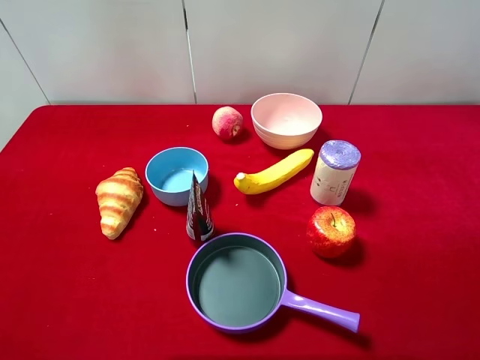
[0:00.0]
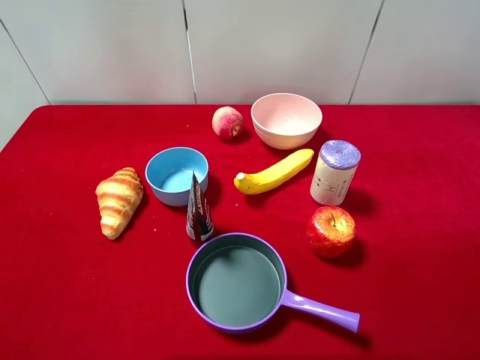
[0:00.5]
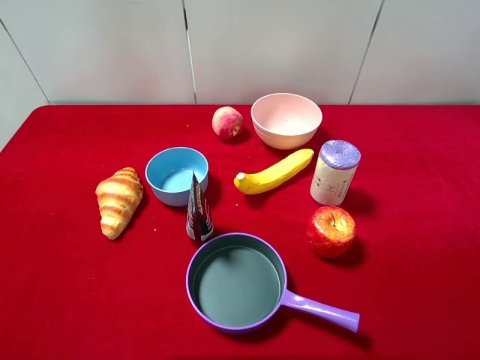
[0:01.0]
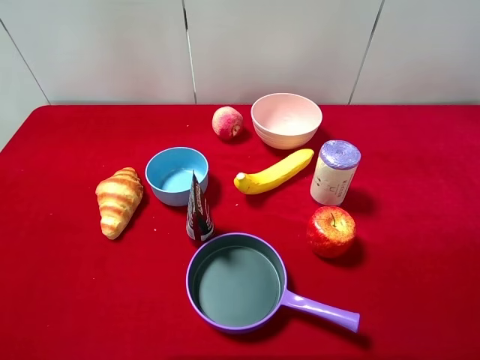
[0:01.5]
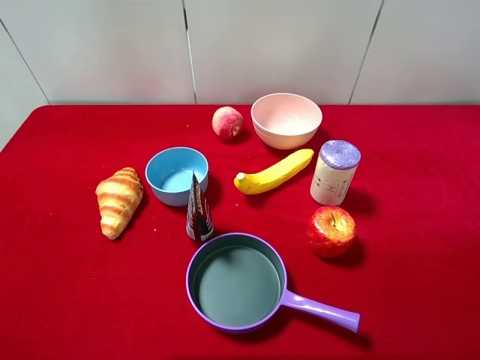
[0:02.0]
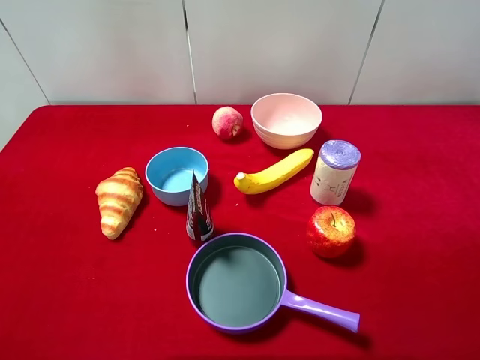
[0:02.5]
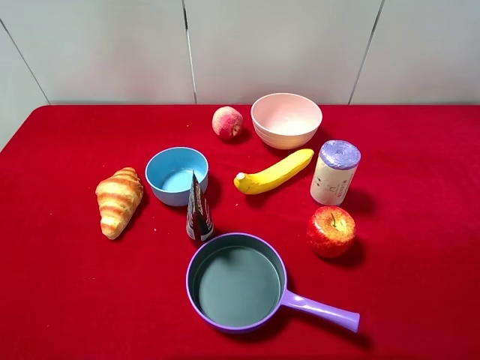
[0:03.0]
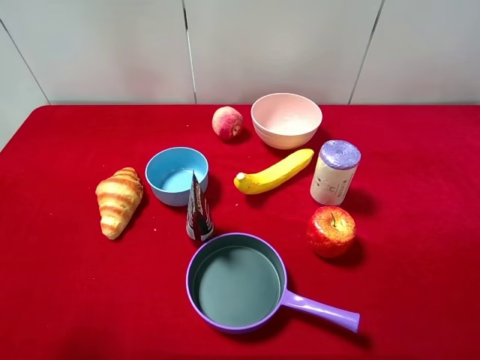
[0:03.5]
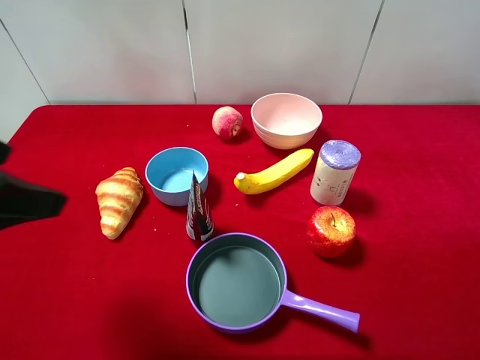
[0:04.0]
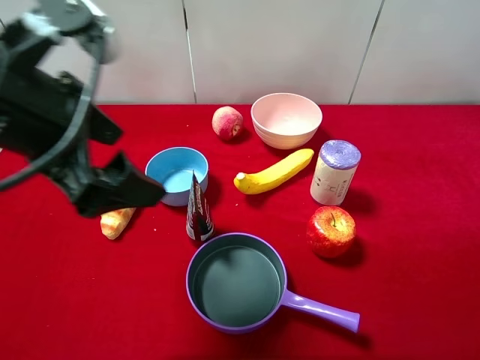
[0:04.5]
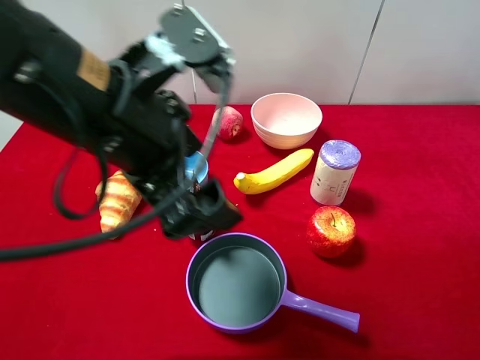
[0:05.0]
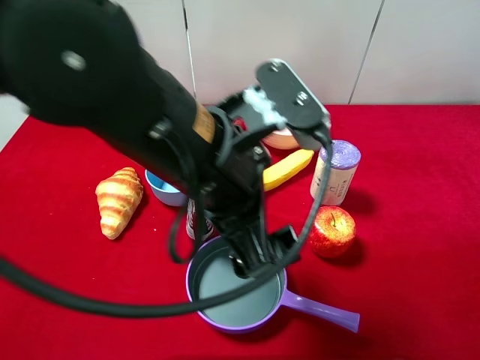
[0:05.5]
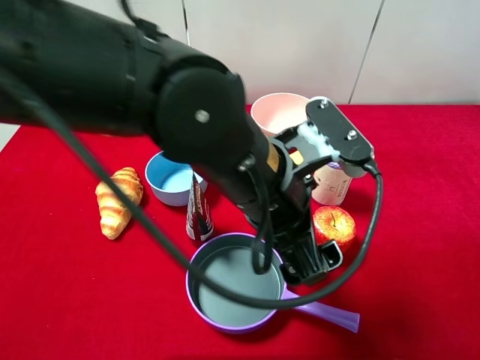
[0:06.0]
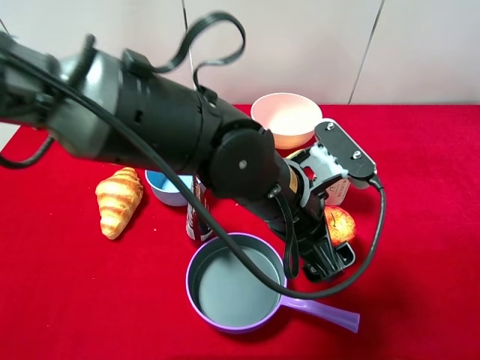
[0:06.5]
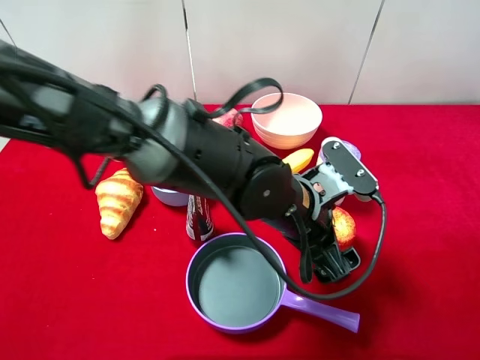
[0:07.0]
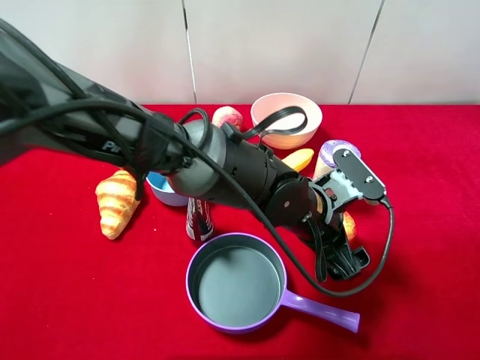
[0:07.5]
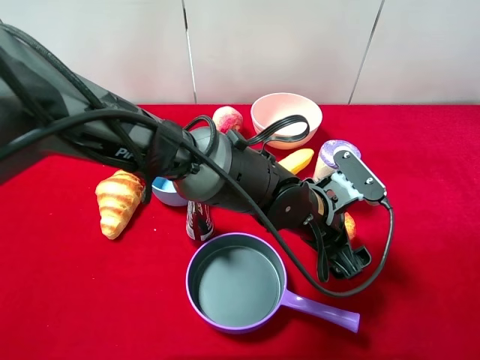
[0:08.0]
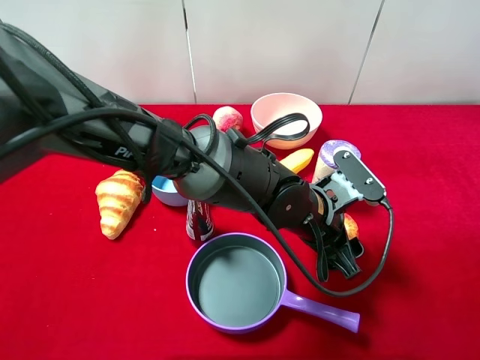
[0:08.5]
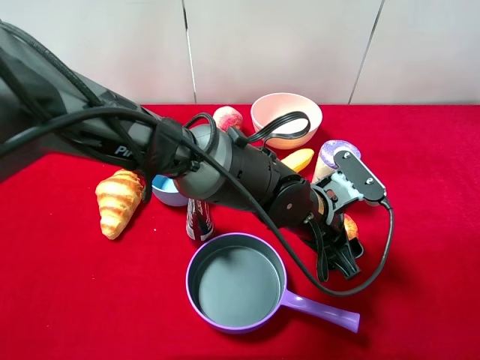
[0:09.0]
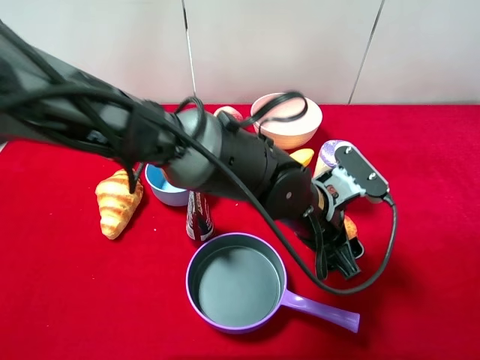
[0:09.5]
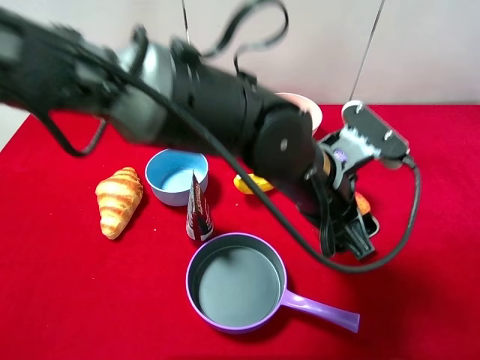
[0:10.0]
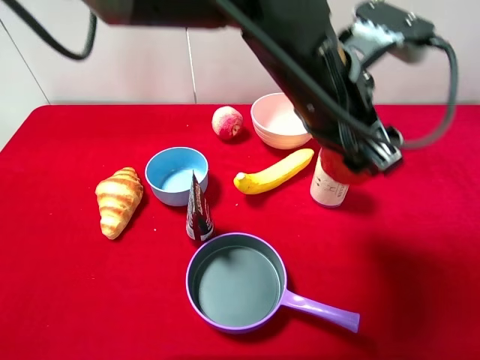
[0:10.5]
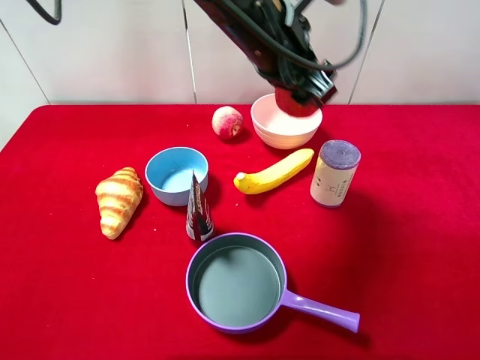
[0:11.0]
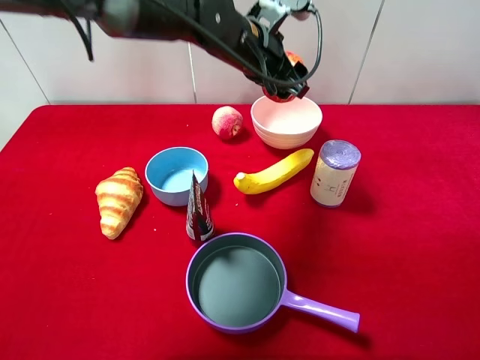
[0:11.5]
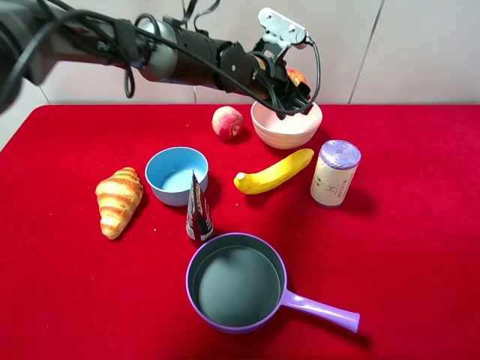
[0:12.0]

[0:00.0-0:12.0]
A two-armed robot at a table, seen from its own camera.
Task of the whole recording: pick up an item with a gripper and place it in a random container on the desktop.
0:00.0 to 0:02.0: Both grippers stay about where they are.
0:02.0 to 0:04.0: The left gripper shifts some 15 cm forward and to the right.
0:04.0 to 0:06.0: The left gripper is displaced to the right by about 25 cm.
0:06.0 to 0:08.0: The left gripper travels downward and to the right by roughly 15 cm.
0:08.0 to 0:10.0: The left gripper heads upward, covering approximately 10 cm, and closes up.
0:10.0 to 0:12.0: The left gripper heads forward, covering about 20 cm.

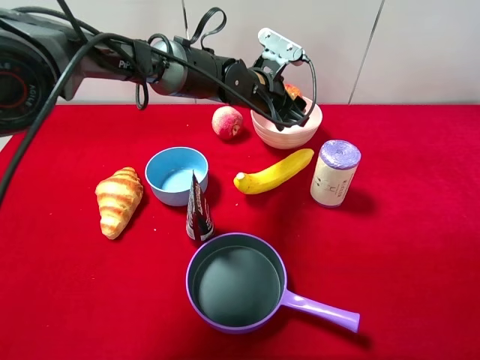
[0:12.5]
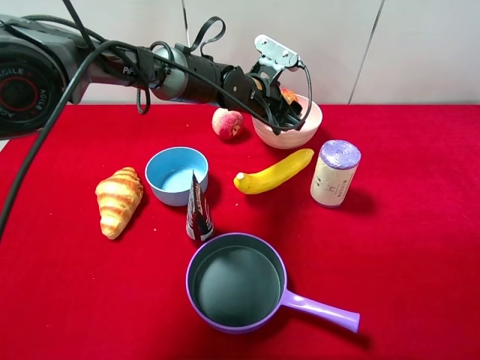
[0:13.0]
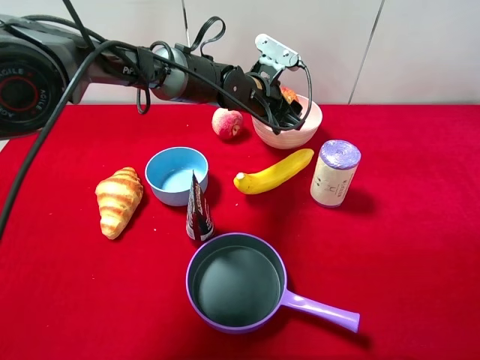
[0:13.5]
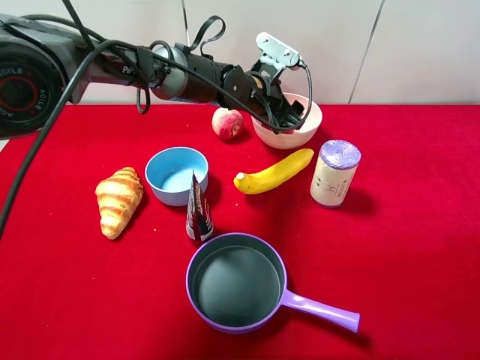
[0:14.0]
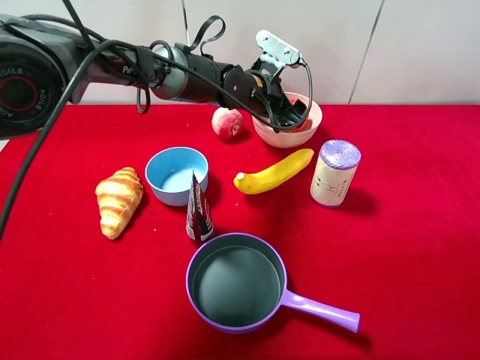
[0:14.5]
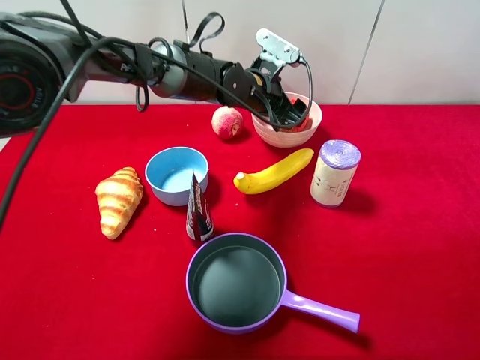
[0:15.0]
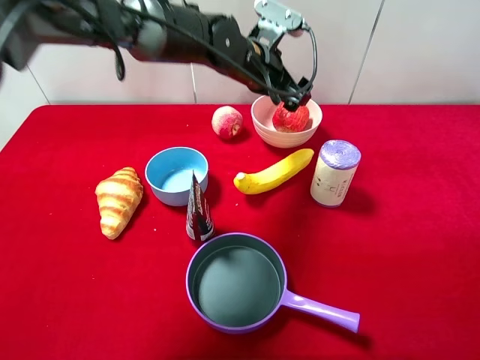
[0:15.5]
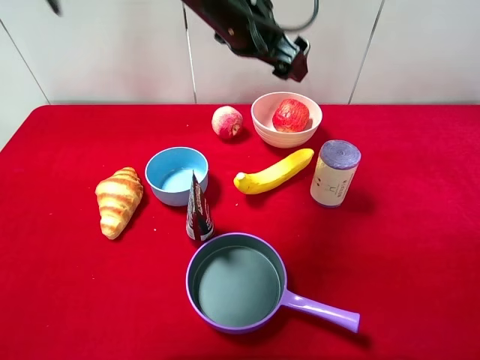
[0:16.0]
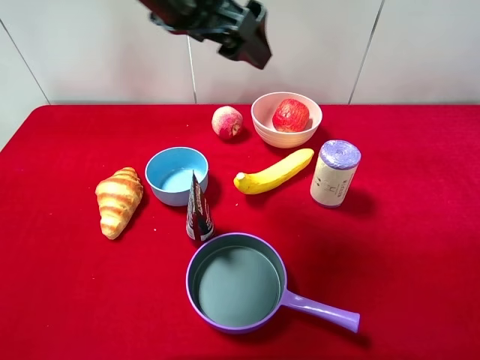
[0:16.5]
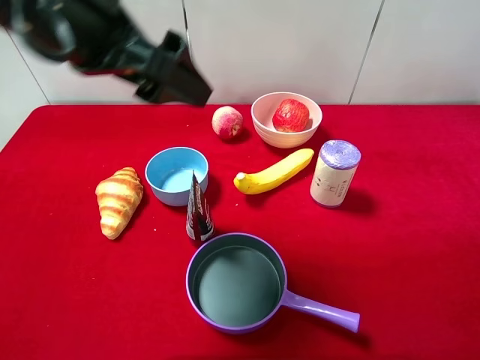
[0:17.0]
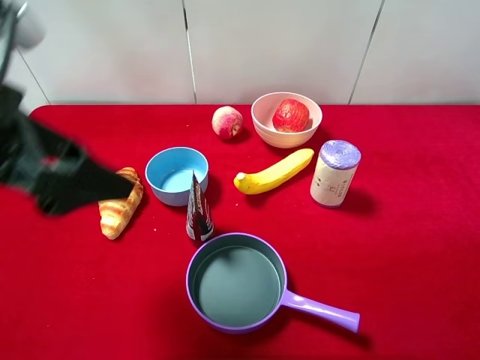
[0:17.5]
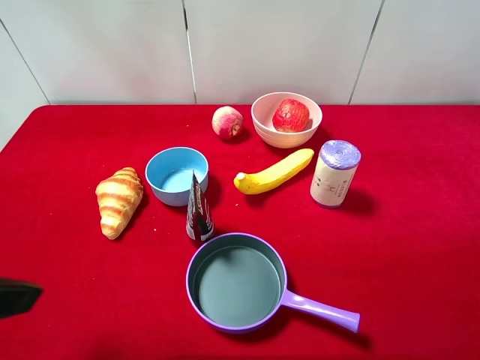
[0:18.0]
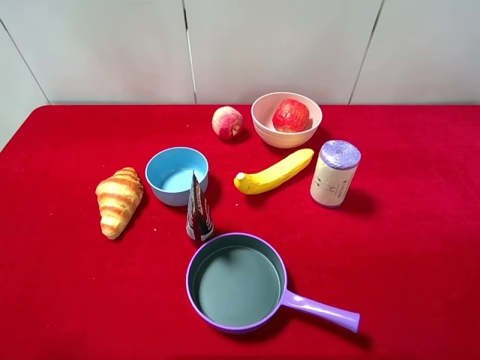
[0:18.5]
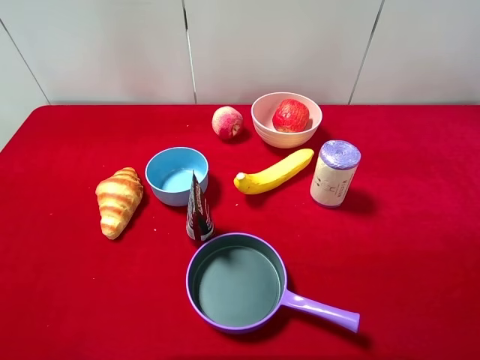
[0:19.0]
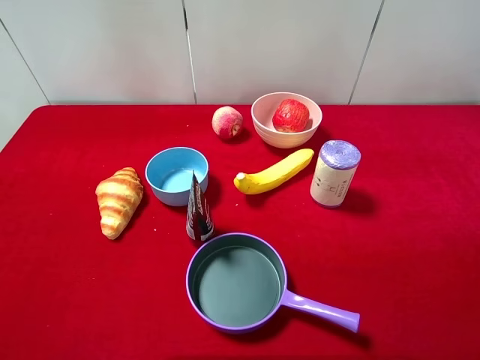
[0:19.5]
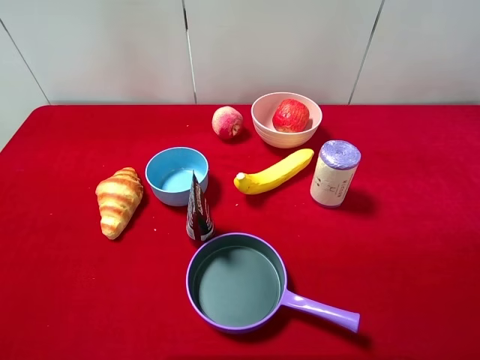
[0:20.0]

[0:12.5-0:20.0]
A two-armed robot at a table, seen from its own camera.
Task of the whole recording: pick up an item with a gripper and place it in a random container on the desktop.
0:12.5 to 0:14.5: The left gripper opens its fingers.
0:14.5 to 0:16.5: The left gripper heads upward, backward and to the left, covering about 25 cm, and opens up.
0:16.5 to 0:18.0: The left gripper travels backward and to the left by approximately 25 cm.
0:18.0 to 0:20.0: The left gripper heads backward, covering roughly 10 cm.
